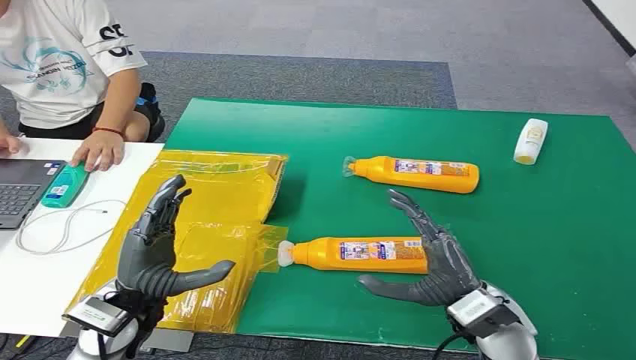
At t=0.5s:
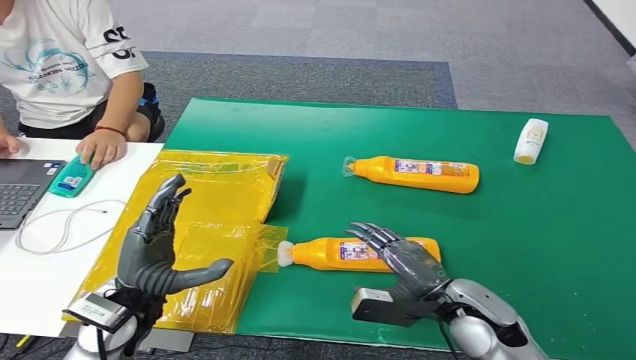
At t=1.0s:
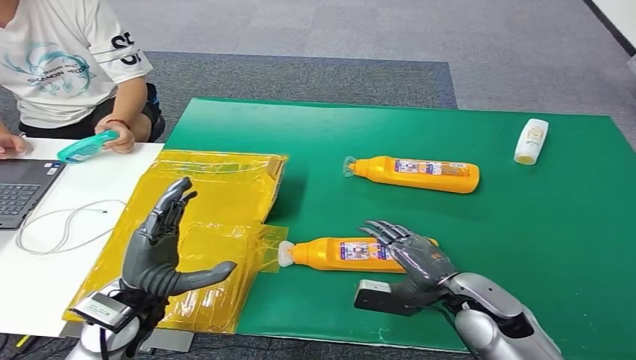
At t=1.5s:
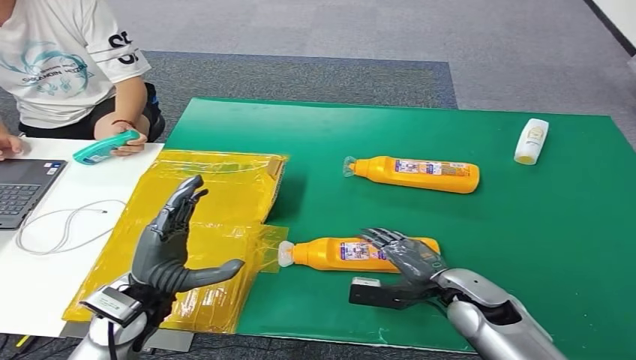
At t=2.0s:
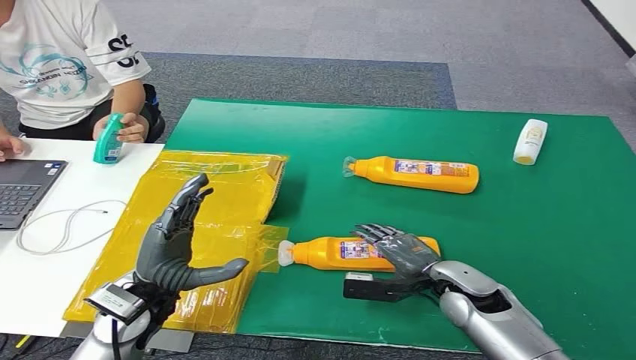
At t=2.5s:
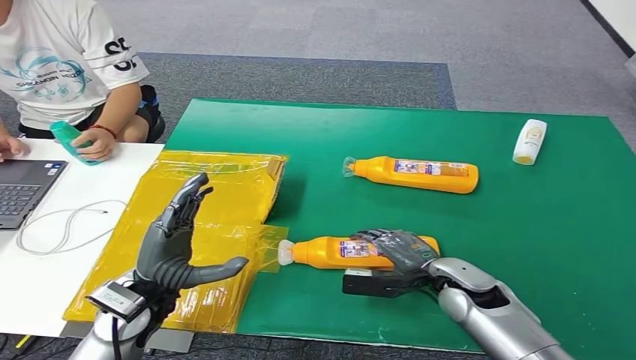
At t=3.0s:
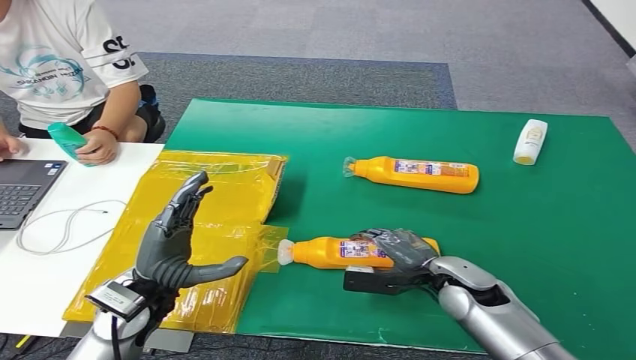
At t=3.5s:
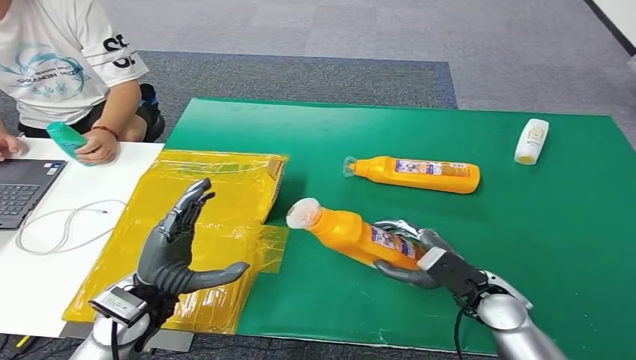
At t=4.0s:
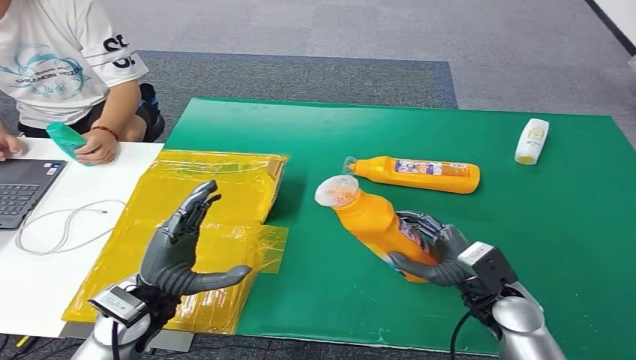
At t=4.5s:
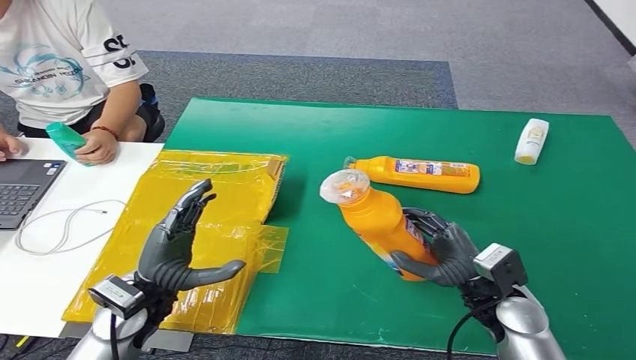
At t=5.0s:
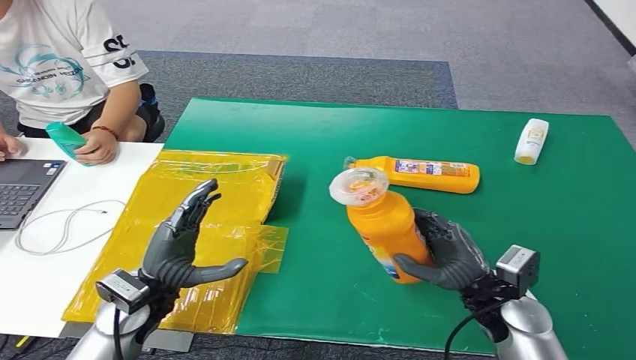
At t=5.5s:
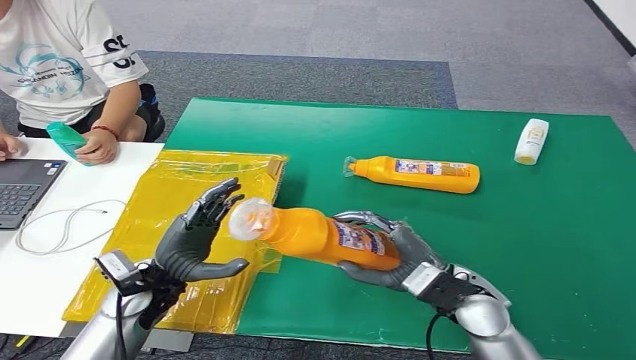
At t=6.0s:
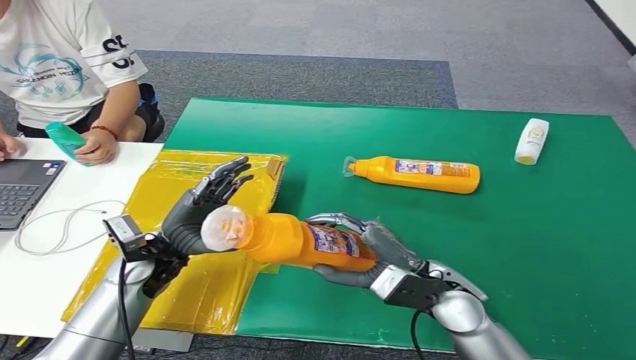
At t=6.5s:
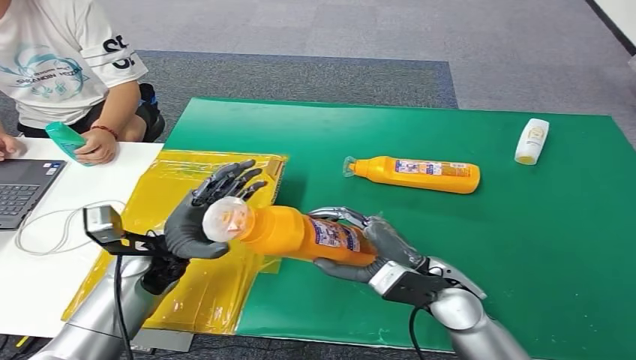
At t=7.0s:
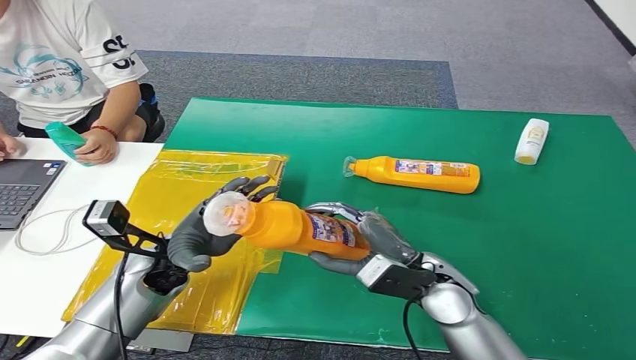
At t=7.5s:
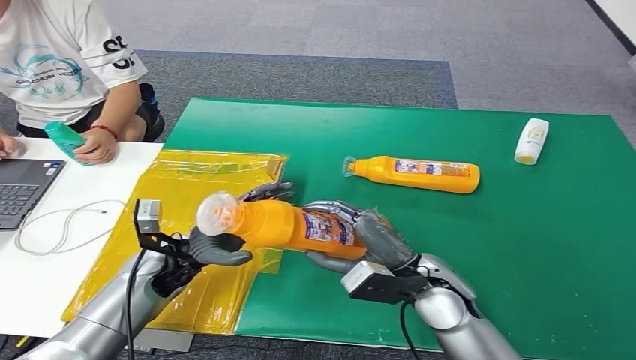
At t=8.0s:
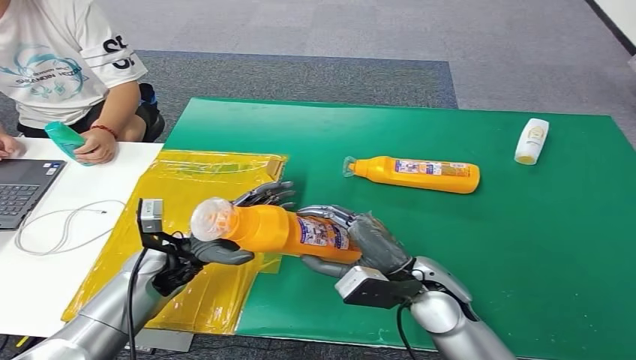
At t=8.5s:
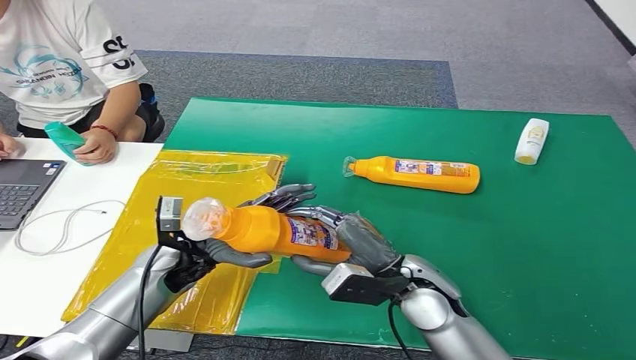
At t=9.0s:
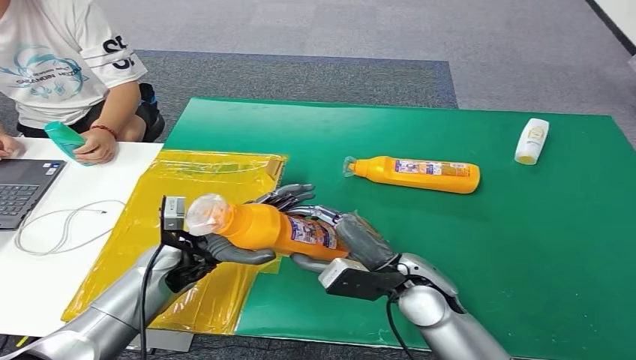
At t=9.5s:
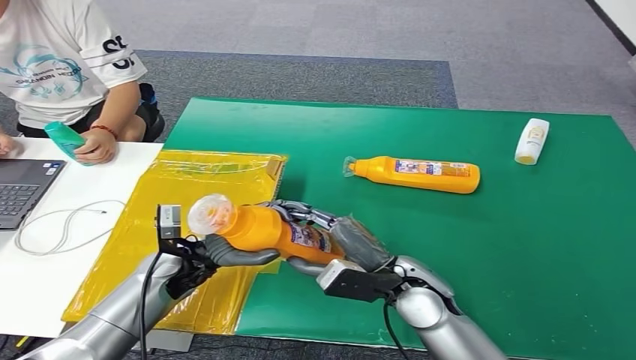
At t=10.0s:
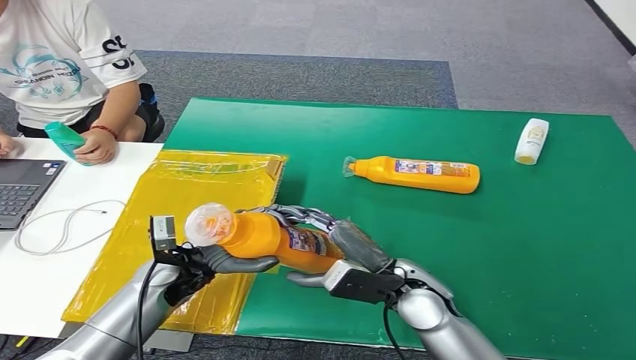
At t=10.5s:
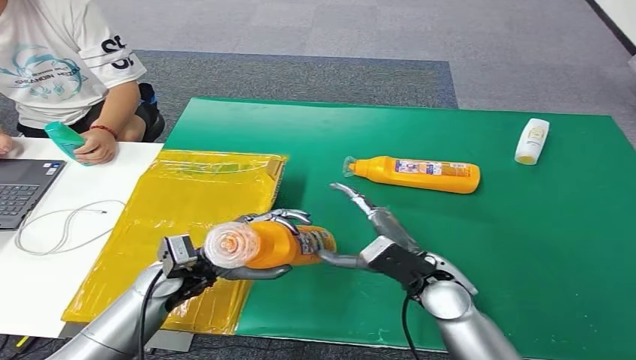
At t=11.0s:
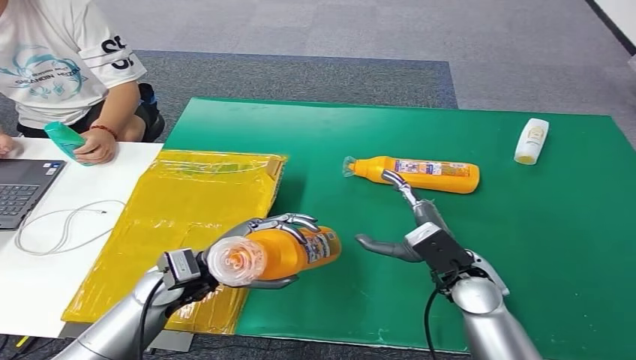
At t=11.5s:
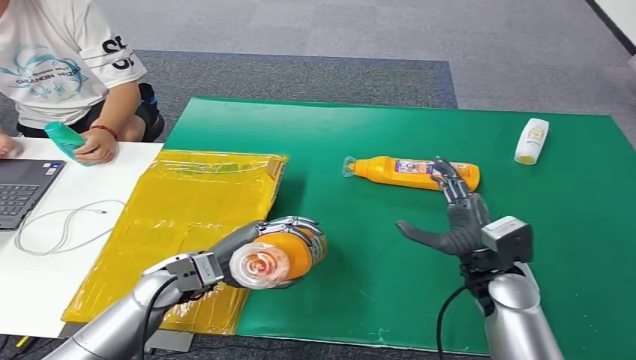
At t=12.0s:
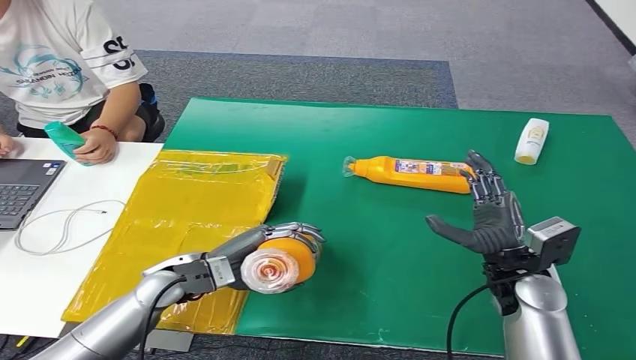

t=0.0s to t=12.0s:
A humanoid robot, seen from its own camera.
Step, t=0.0s to t=4.5s: Pick up the bottle from the table.
t=2.0s to t=4.0s: The right hand ends up about 5 cm from where it was.
t=4.0s to t=6.0s: The right hand is displaced to the left by some 10 cm. The left hand goes approximately 10 cm forward.
t=8.0s to t=10.0s: There are only small adjustments of the hands.
t=10.0s to t=12.0s: The right hand heads to the right, covering about 15 cm.

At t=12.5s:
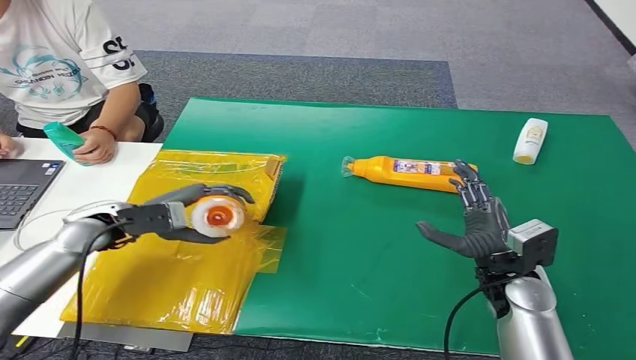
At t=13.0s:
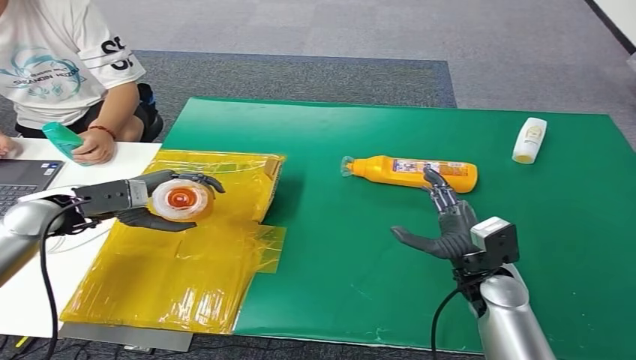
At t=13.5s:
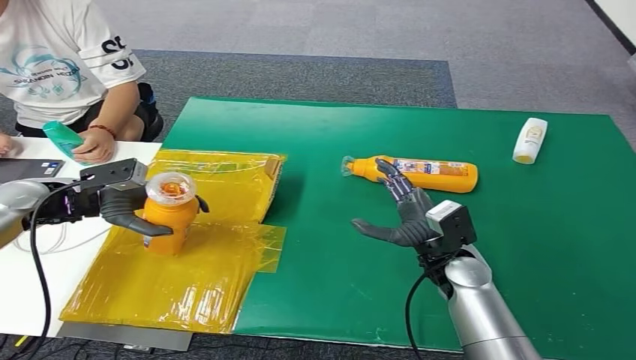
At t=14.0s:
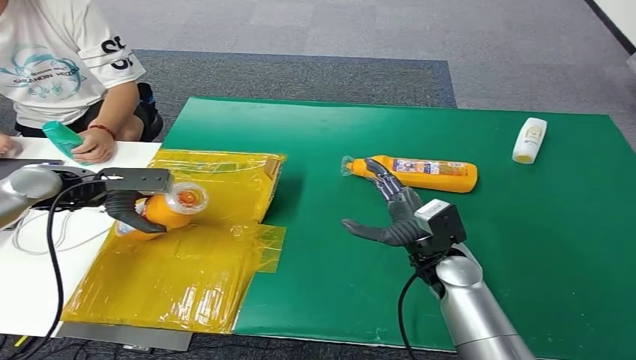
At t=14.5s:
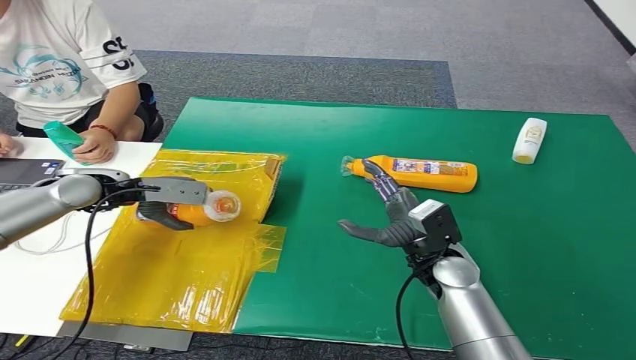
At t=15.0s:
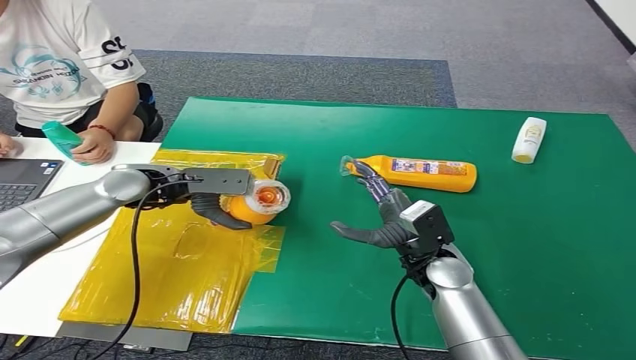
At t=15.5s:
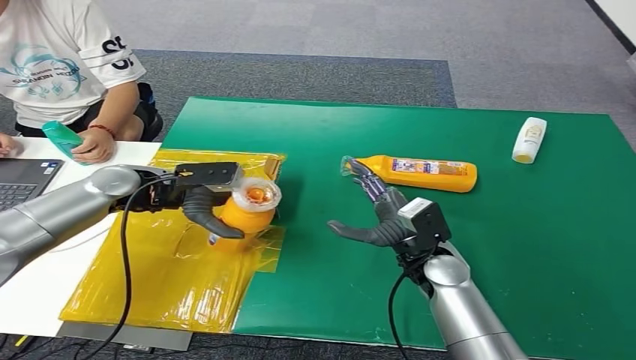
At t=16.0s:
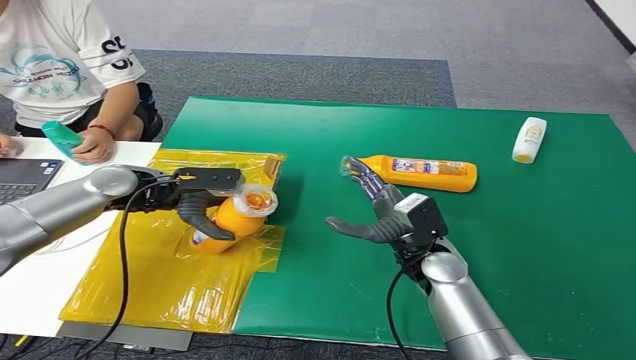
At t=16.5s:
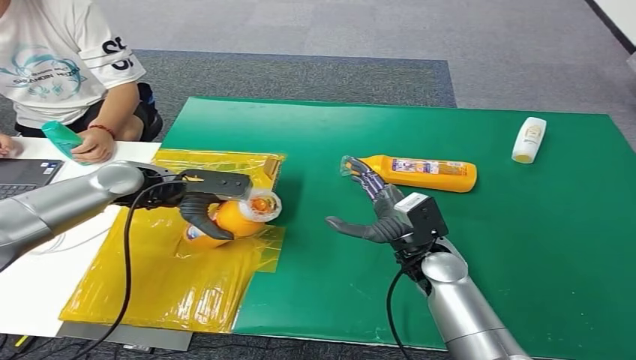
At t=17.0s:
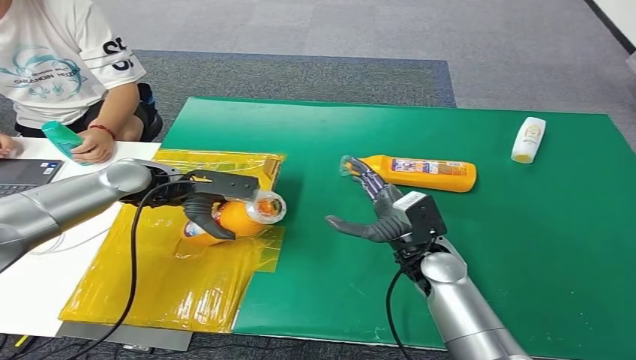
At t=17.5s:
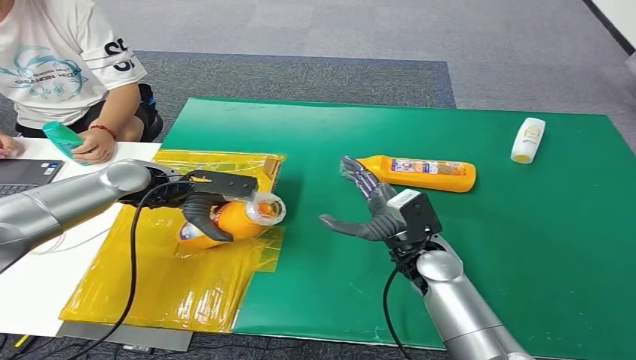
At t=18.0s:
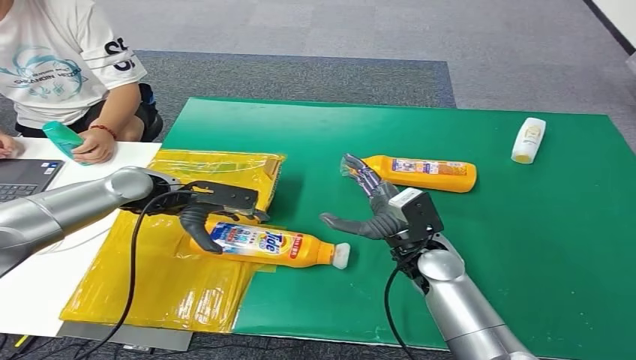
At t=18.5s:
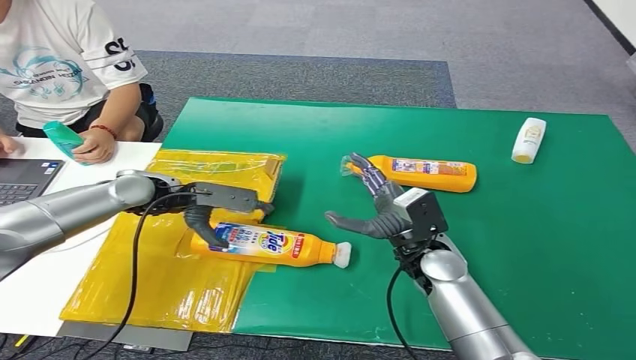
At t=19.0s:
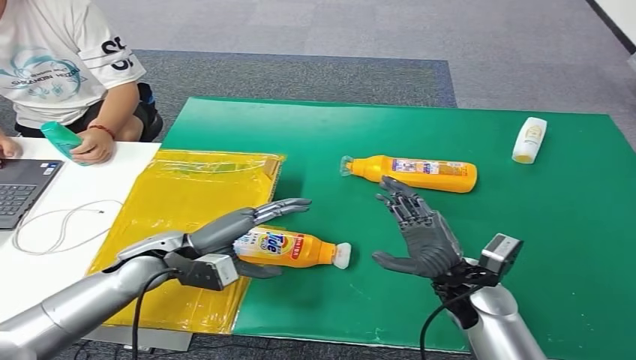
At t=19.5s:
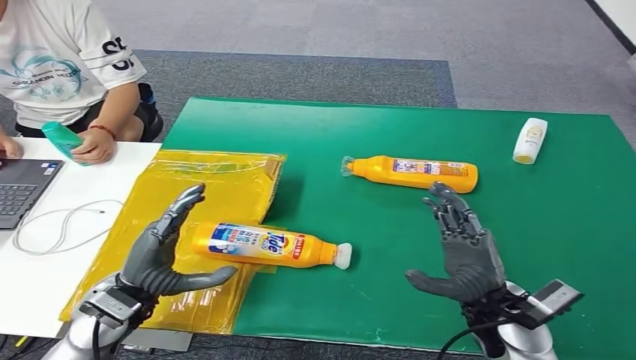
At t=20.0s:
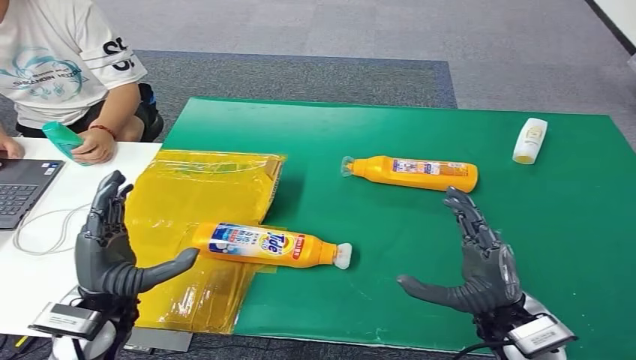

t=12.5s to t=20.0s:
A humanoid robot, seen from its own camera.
Step, t=12.5s to t=20.0s: Turn the bottle to the front side.
t=12.5s to t=14.5s: The left hand shifts approximately 5 cm forward; the right hand heads to the left, covering roughly 10 cm.
t=14.5s to t=16.5s: The left hand travels to the right by approximately 5 cm.
t=16.5s to t=18.0s: The hands stay close to where they were, moving slightly.
